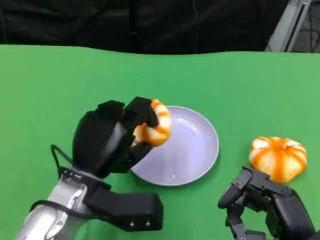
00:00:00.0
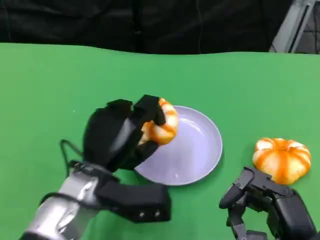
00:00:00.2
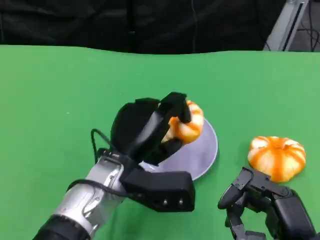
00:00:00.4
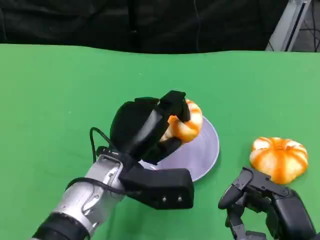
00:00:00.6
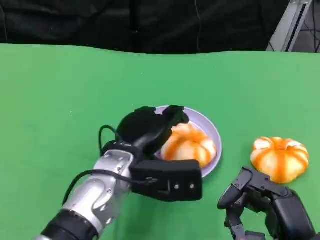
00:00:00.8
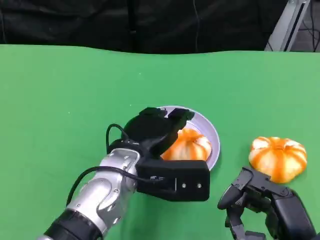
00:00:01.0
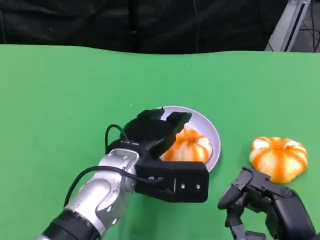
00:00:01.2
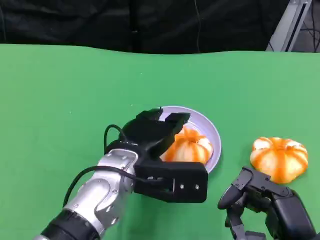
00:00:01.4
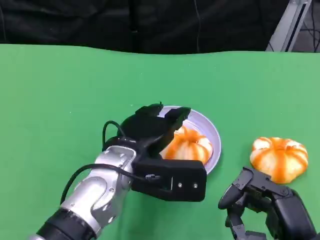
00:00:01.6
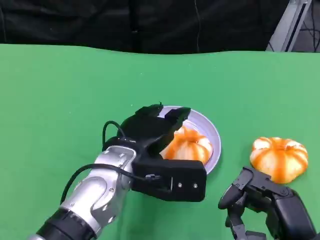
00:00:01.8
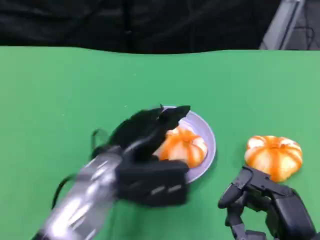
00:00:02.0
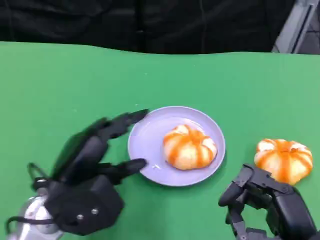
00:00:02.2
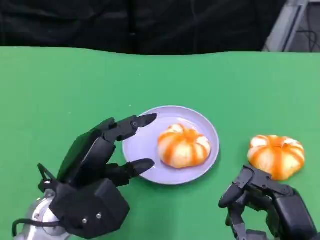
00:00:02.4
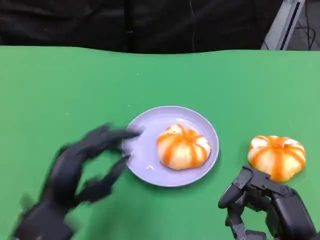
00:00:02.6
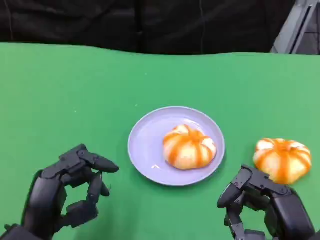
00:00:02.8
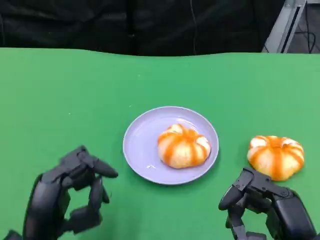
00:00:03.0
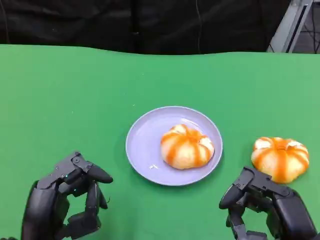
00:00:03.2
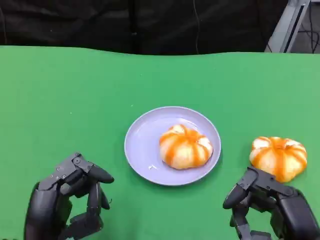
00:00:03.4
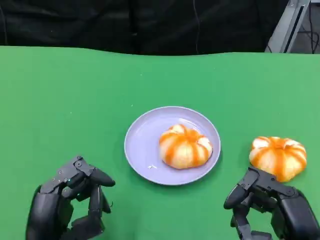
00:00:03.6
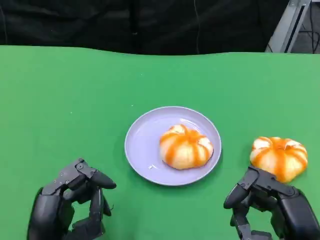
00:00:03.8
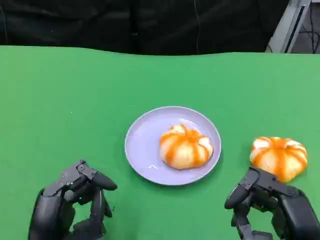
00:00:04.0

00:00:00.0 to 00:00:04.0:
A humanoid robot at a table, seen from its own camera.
Task of the whole recording: Grasp the bread from the table and place it into the plate.
00:00:00.0 to 00:00:01.4: The left hand goes some 5 cm to the right.
00:00:01.4 to 00:00:02.6: The left hand travels to the left and backward by some 15 cm.
00:00:02.6 to 00:00:04.0: The hands stay close to where they were, moving slightly.

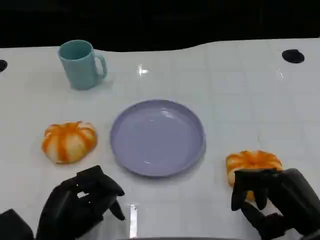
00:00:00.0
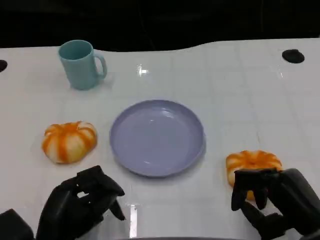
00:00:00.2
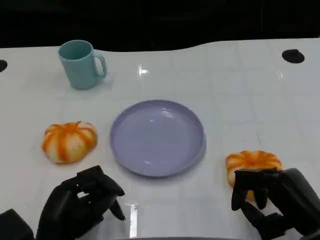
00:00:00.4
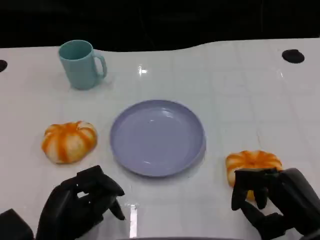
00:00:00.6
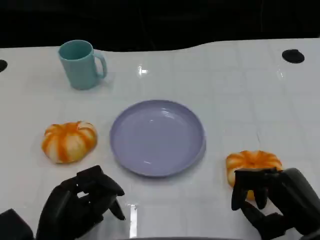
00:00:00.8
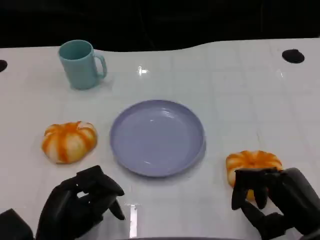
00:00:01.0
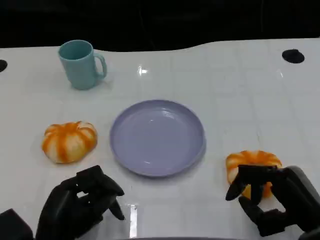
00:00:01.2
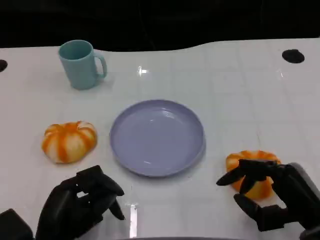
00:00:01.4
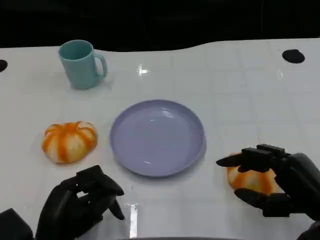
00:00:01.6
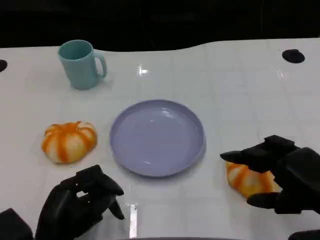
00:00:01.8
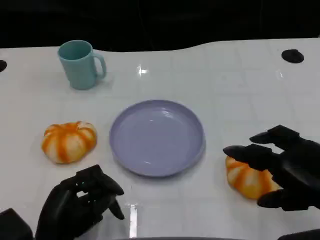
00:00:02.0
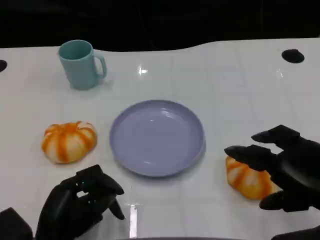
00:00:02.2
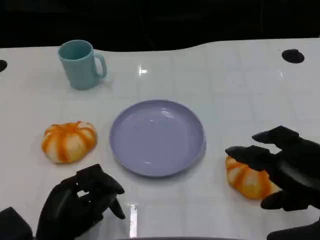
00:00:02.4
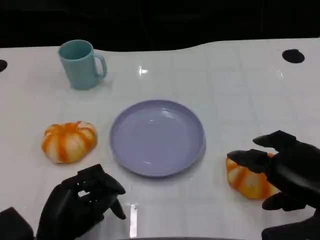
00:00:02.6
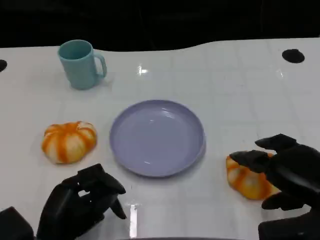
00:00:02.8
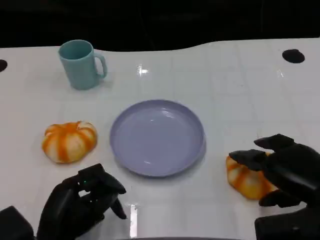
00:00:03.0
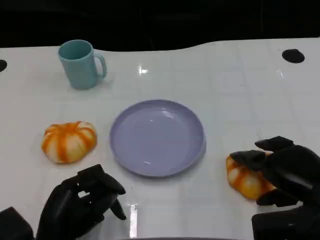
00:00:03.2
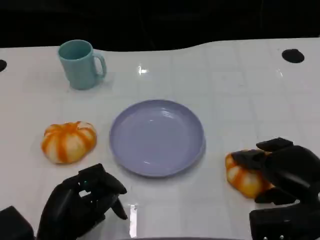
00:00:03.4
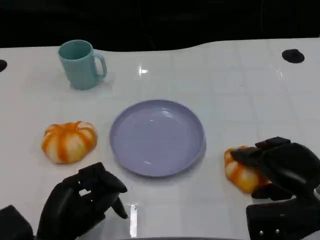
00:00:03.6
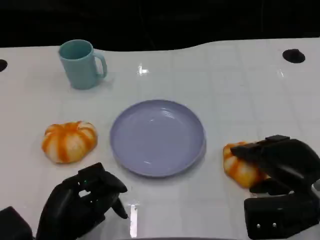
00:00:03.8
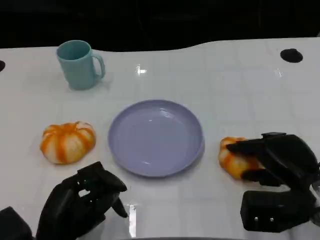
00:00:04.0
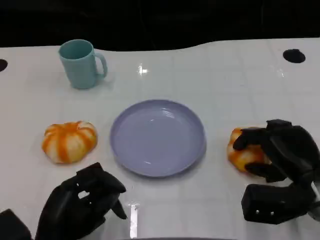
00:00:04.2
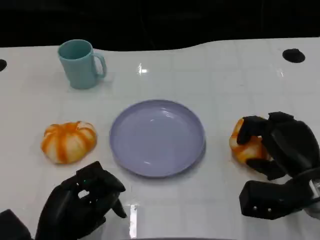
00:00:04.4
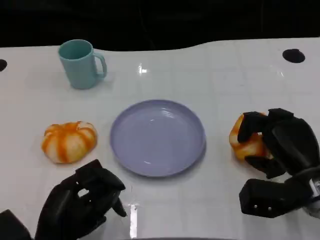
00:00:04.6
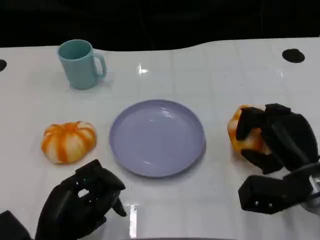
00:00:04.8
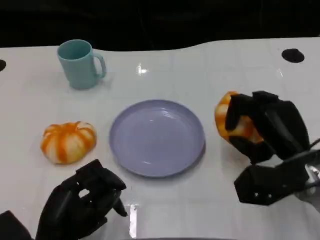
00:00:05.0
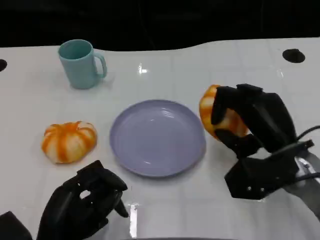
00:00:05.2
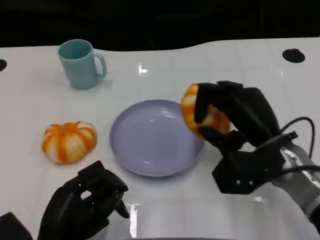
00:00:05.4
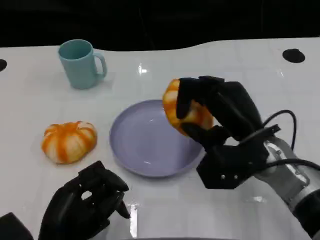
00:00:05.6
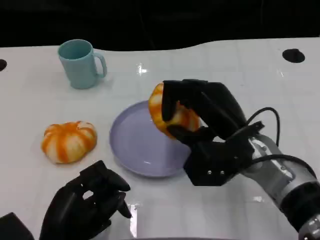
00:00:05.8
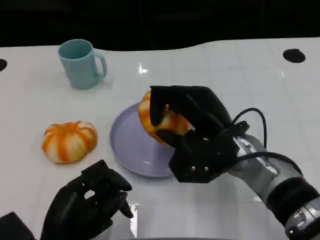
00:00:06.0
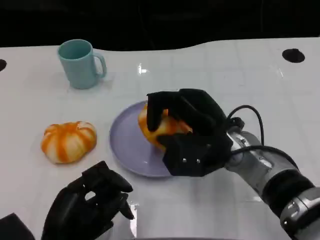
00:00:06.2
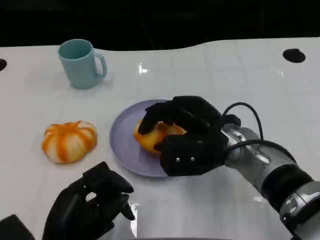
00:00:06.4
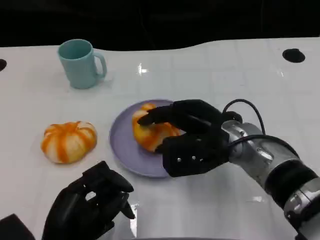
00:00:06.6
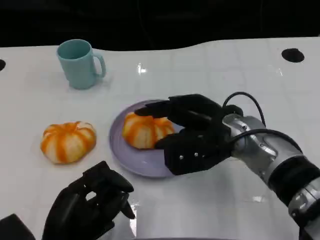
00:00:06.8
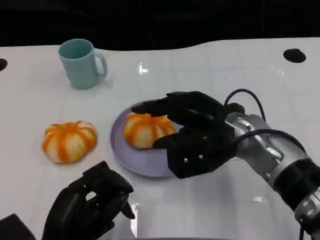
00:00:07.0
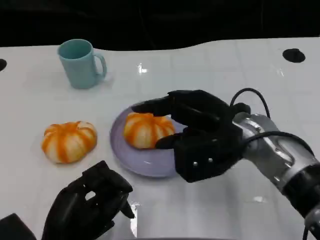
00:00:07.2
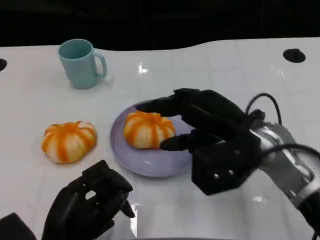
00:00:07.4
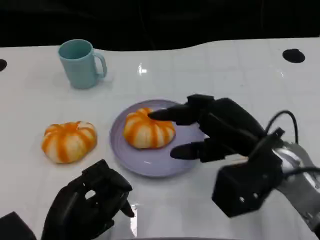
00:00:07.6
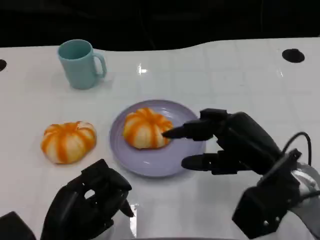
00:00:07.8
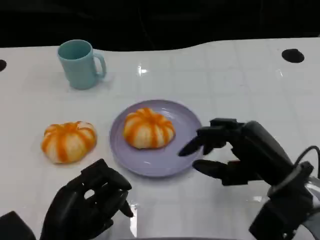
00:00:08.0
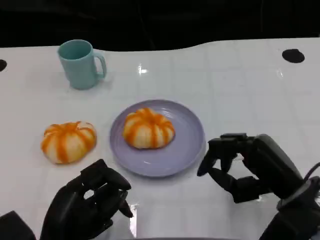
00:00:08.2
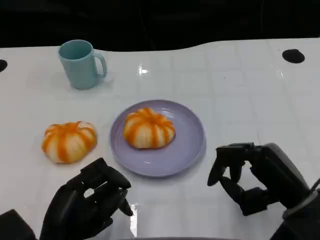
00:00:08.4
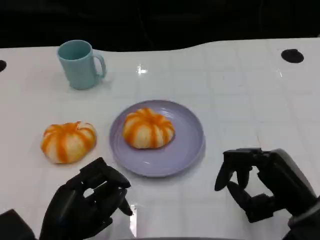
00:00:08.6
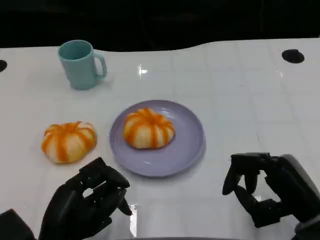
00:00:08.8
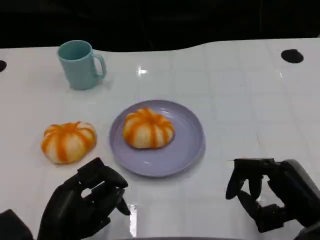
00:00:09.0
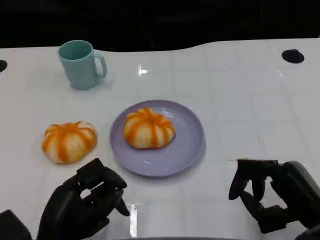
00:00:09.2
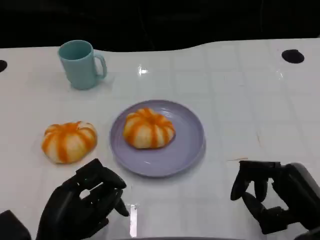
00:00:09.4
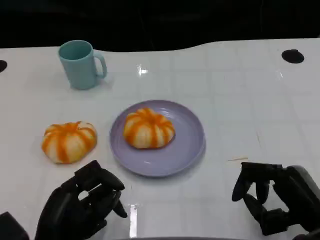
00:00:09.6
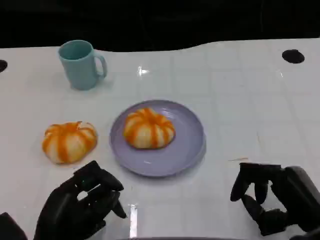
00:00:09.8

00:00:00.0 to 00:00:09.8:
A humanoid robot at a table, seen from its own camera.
Task of the whole recording: Grasp the bread from the table and place it into the plate.
00:00:00.0 to 00:00:01.4: The hands make only small movements.
00:00:02.8 to 00:00:04.2: The right hand moves downward and forward, approximately 10 cm.
00:00:04.2 to 00:00:05.6: The right hand travels to the left and upward by about 10 cm.
00:00:07.0 to 00:00:08.4: The right hand moves to the right, backward and downward, some 15 cm.
00:00:08.4 to 00:00:09.8: The hands move only a little.

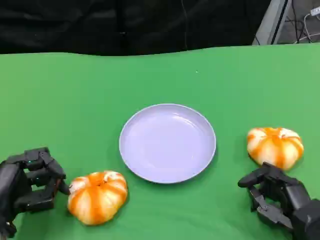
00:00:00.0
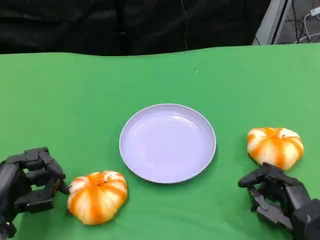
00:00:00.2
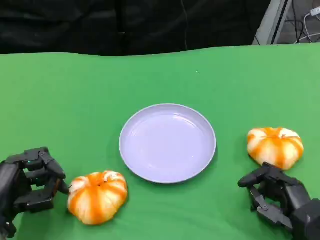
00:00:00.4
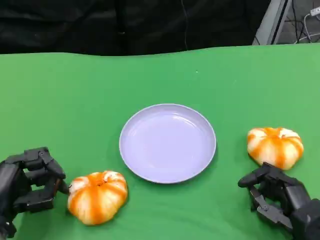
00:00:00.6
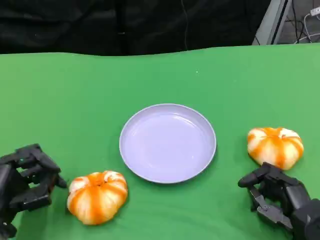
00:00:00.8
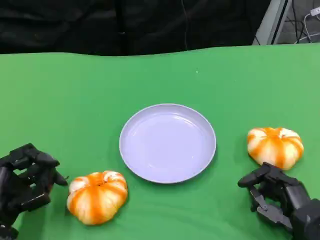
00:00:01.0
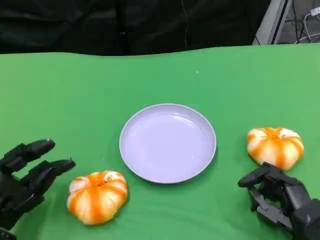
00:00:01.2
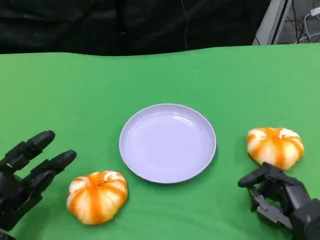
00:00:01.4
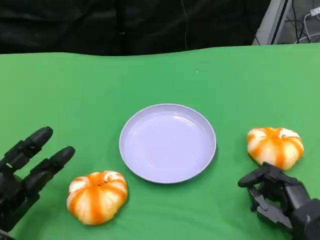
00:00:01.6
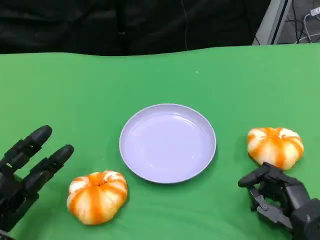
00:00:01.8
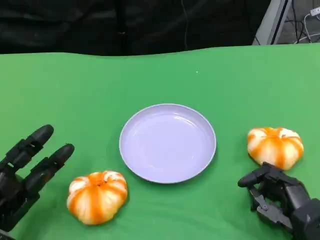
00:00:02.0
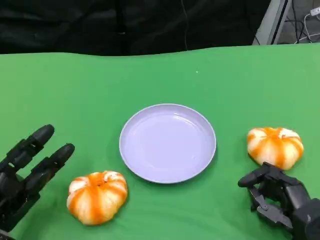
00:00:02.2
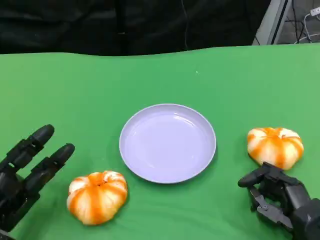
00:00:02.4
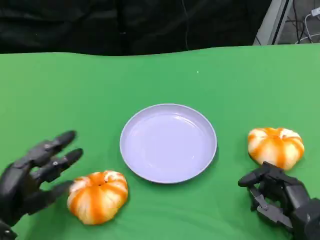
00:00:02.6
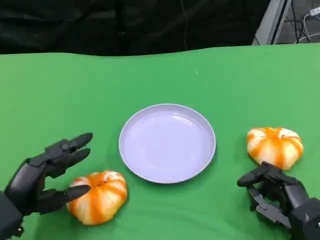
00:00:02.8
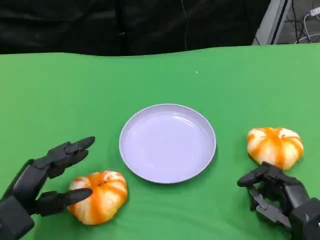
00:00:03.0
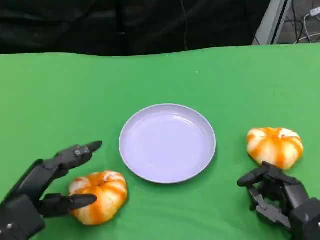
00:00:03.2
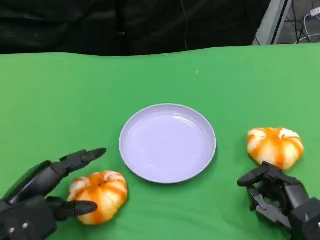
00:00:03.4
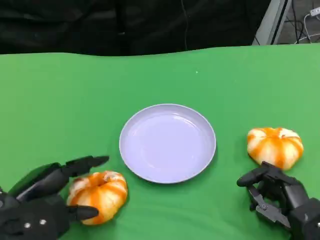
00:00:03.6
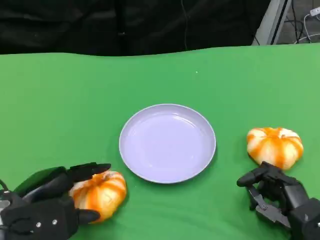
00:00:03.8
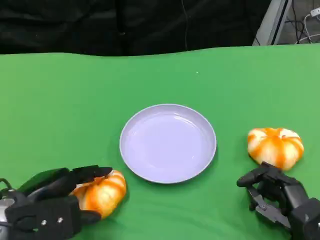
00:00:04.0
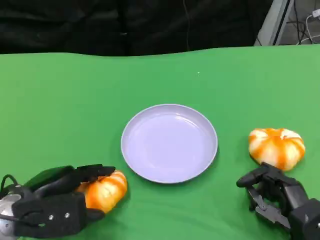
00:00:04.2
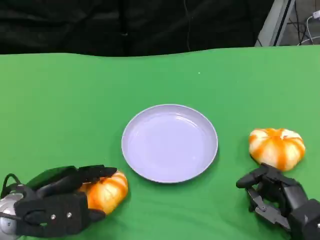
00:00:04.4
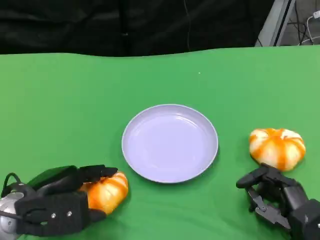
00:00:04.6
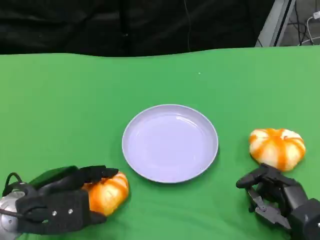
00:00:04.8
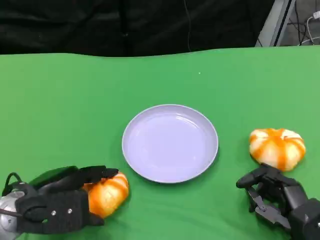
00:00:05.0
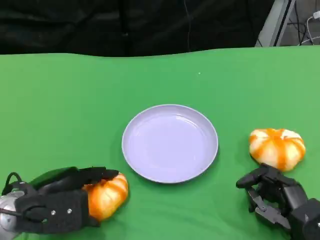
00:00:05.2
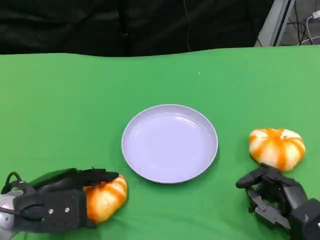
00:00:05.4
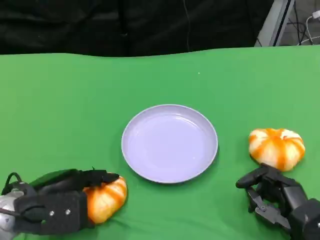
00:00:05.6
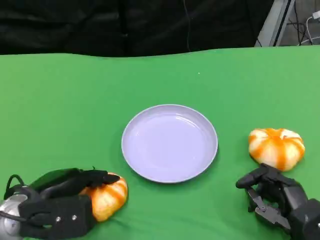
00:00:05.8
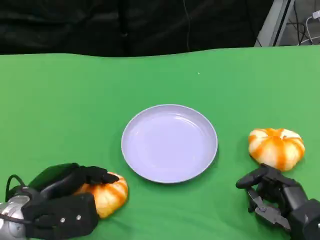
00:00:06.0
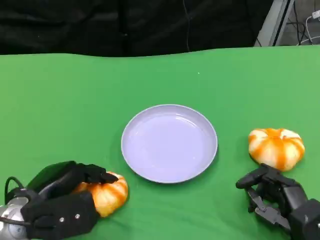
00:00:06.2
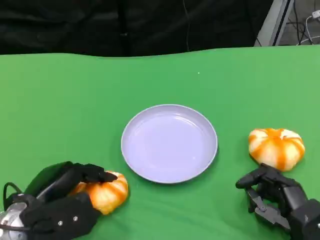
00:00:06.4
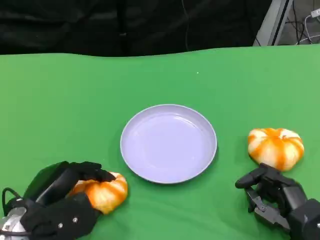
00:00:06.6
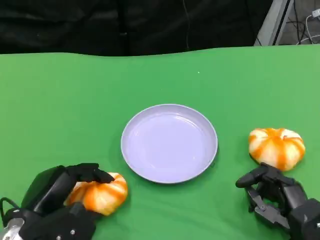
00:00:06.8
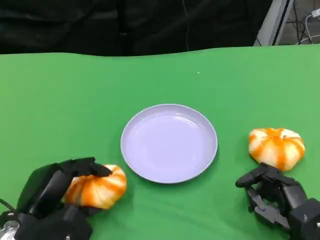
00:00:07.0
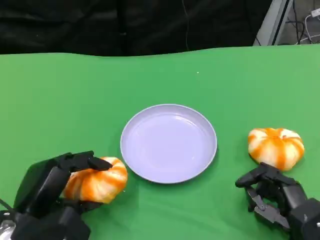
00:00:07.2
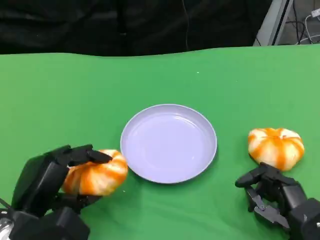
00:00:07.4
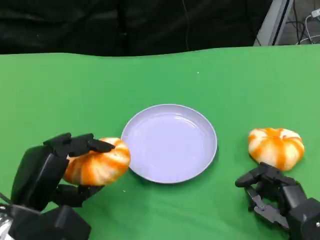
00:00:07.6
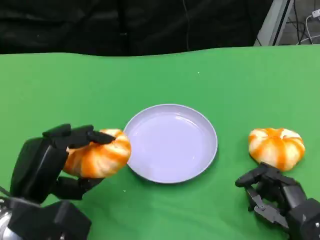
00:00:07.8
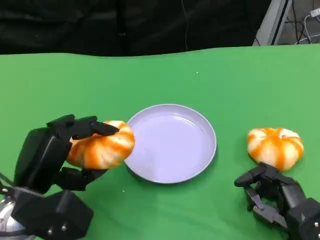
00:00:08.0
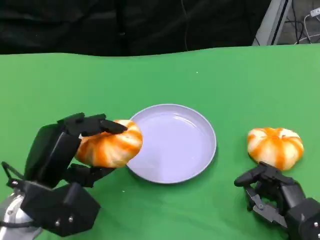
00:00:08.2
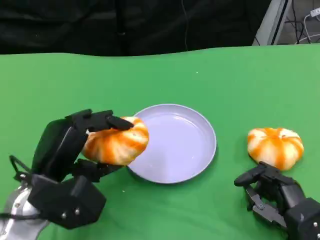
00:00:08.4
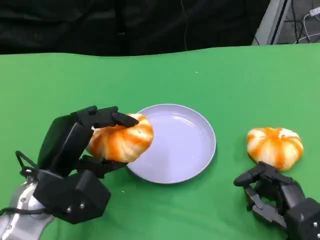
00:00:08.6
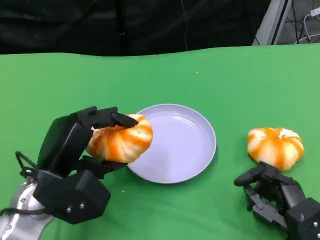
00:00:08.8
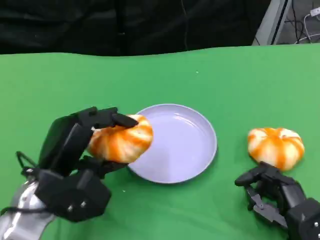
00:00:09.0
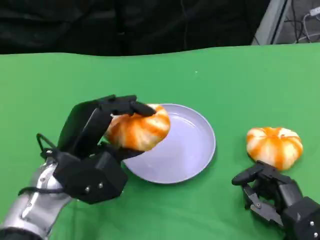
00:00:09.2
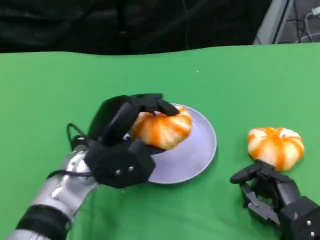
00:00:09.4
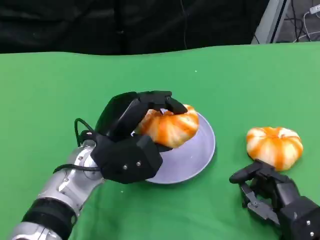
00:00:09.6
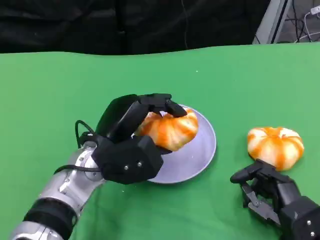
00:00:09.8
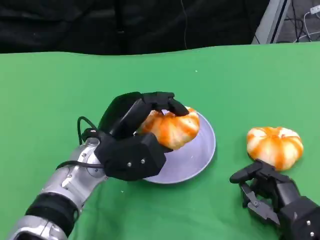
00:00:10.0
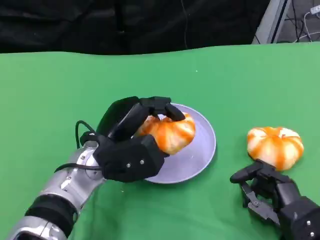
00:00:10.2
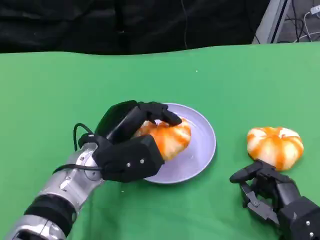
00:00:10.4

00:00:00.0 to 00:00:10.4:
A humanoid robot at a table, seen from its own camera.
Task of the whole recording: Grasp the bread from the table and place it into the plate.
00:00:04.4 to 00:00:06.0: The hands move only a little.
00:00:07.4 to 00:00:09.0: The left hand travels forward by some 5 cm.
00:00:09.0 to 00:00:10.4: The left hand travels to the right by roughly 5 cm.
